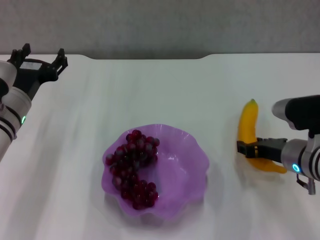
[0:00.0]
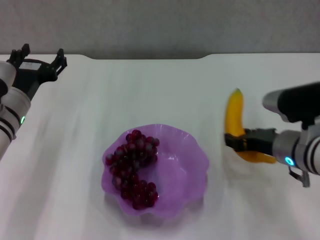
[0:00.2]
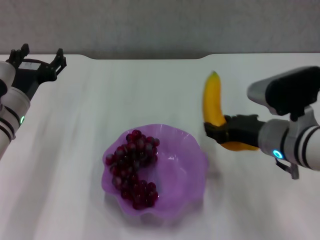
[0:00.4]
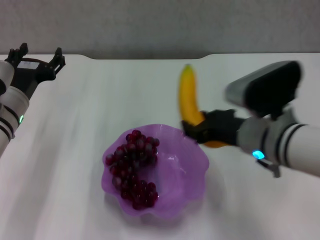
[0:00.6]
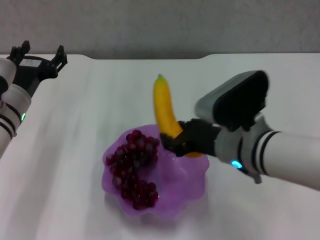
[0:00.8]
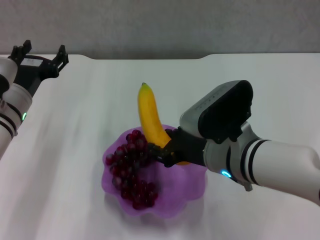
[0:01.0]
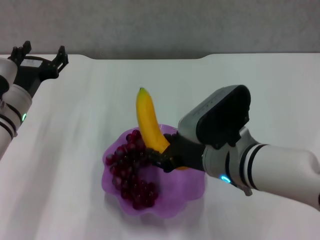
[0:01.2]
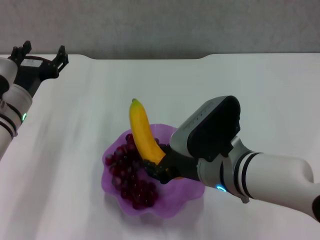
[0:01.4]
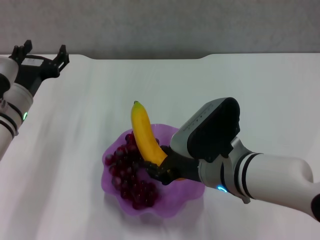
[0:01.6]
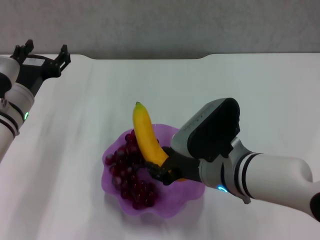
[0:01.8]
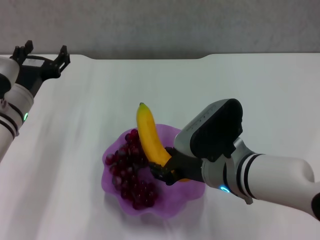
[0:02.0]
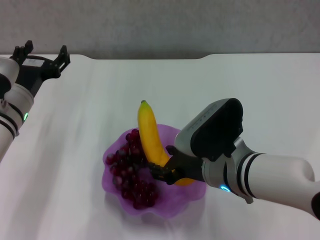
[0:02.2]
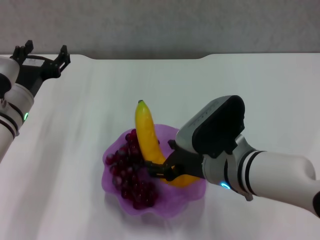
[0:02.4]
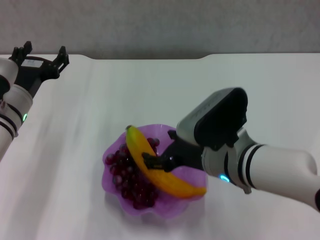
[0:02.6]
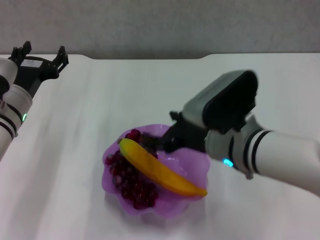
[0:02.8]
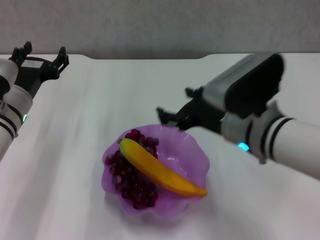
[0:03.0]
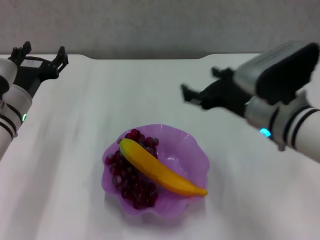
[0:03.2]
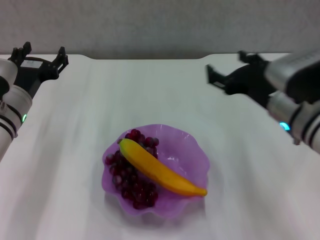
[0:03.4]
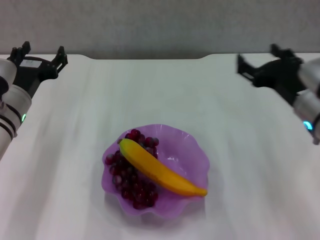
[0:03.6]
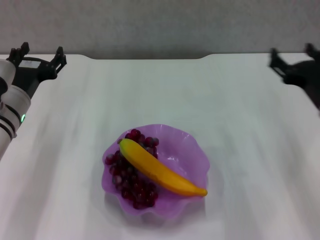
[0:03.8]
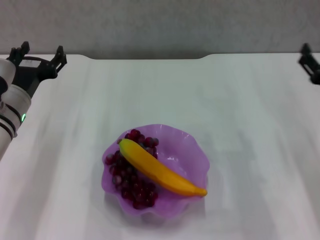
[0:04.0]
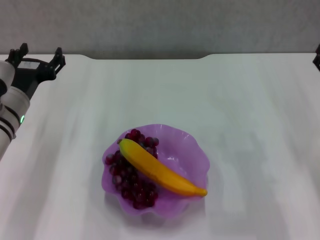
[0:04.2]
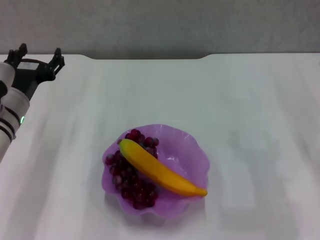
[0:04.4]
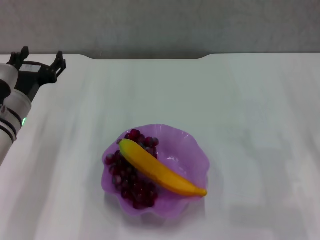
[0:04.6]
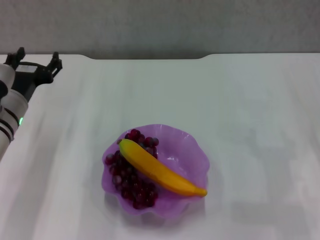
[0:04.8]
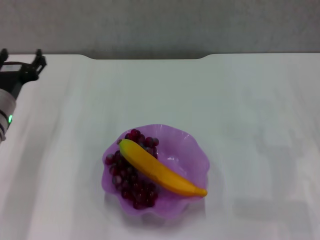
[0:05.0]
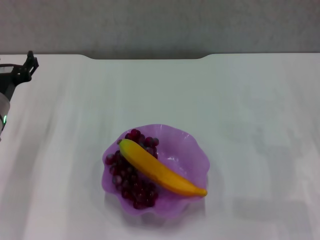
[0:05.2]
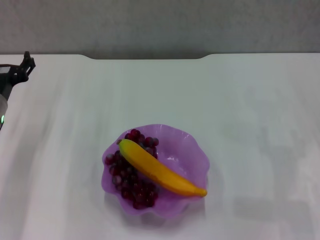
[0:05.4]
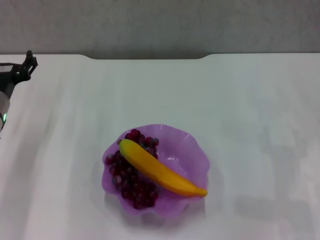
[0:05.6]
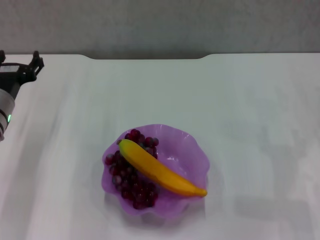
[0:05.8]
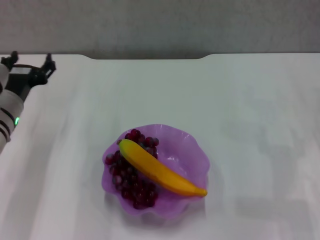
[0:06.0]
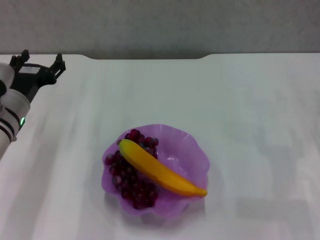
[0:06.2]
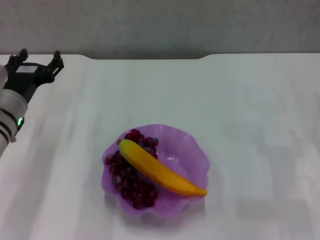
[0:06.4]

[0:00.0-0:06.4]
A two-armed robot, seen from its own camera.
Step, 0:00.0 to 0:02.2: Place the banana in the purple plate with right gripper.
0:00.0 to 0:01.6: The right gripper travels to the left by approximately 15 cm.
0:01.6 to 0:03.2: The right gripper moves to the right, about 5 cm, and opens up.
0:03.2 to 0:04.8: The right gripper goes approximately 20 cm to the right.
0:04.8 to 0:06.4: There are only small adjustments of the grippers.
